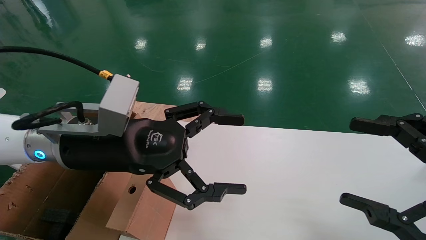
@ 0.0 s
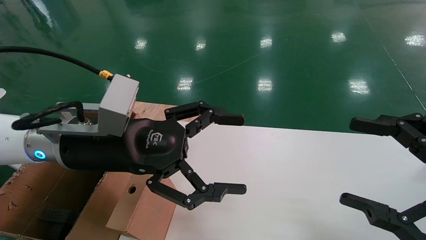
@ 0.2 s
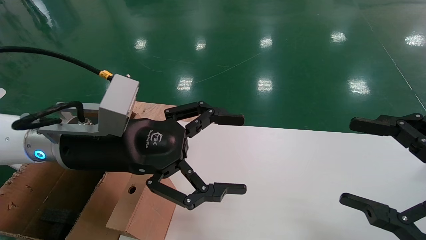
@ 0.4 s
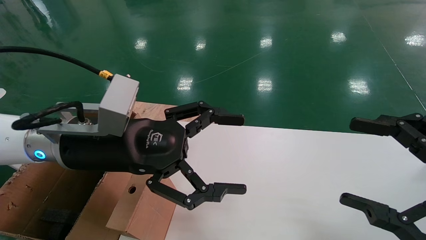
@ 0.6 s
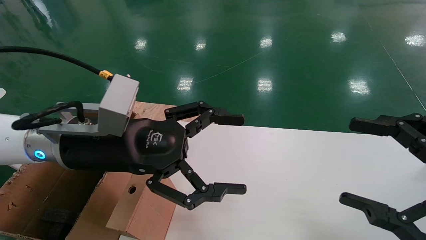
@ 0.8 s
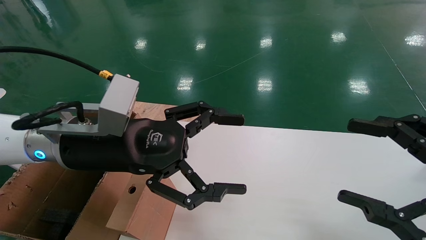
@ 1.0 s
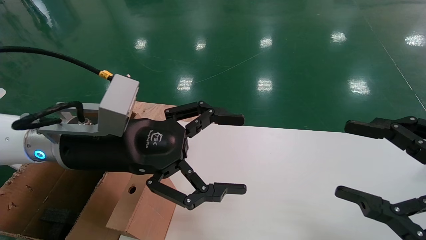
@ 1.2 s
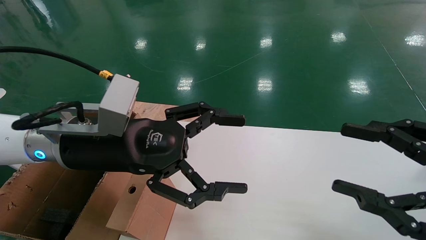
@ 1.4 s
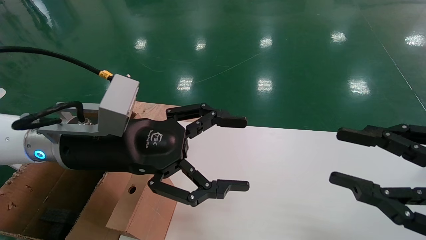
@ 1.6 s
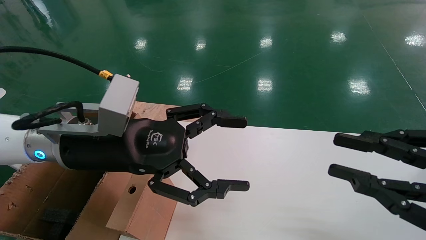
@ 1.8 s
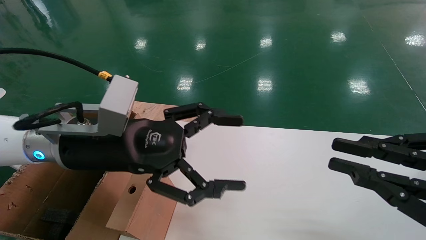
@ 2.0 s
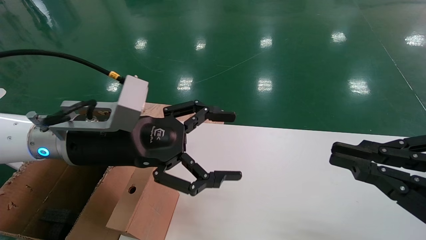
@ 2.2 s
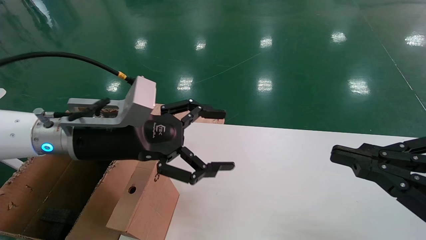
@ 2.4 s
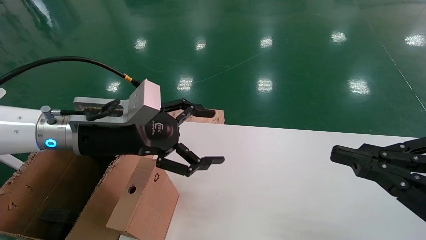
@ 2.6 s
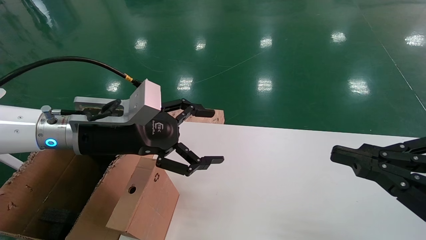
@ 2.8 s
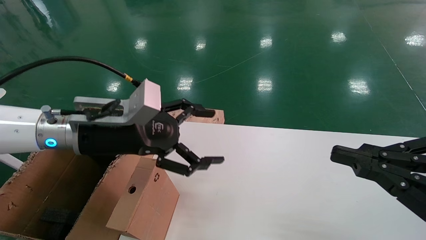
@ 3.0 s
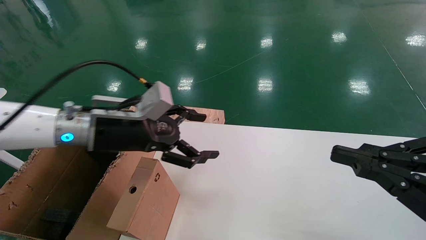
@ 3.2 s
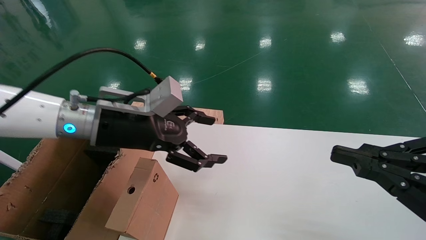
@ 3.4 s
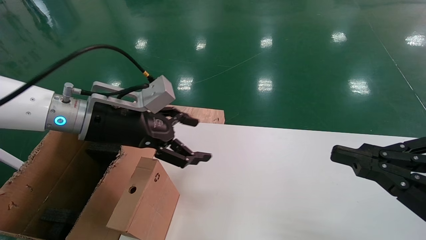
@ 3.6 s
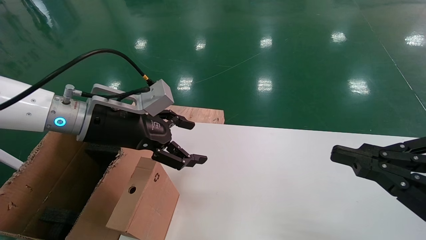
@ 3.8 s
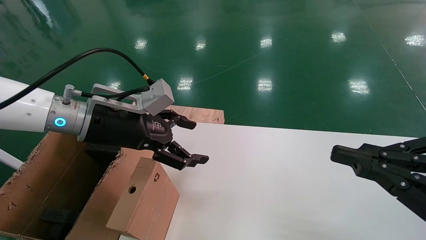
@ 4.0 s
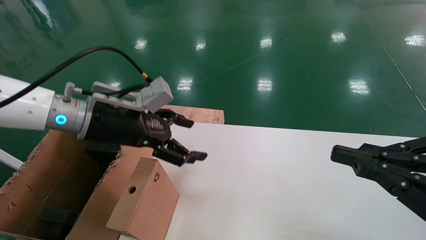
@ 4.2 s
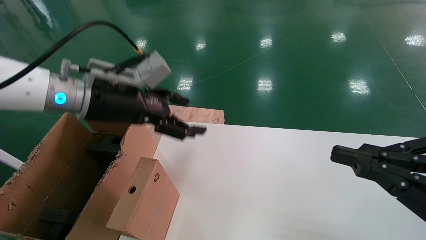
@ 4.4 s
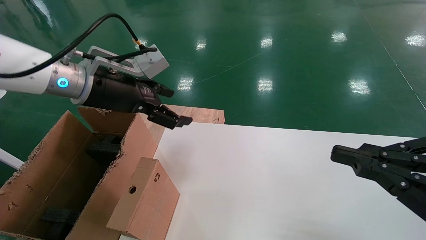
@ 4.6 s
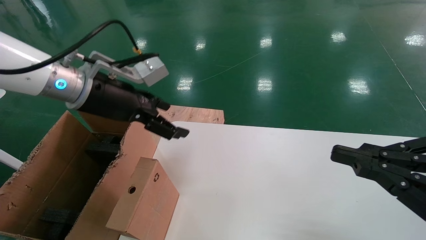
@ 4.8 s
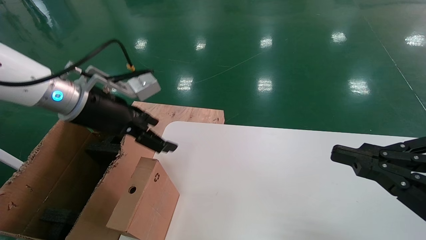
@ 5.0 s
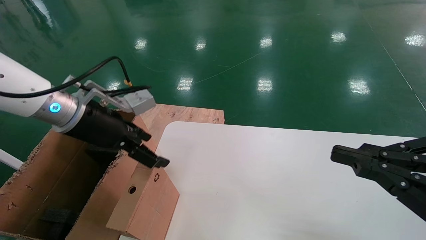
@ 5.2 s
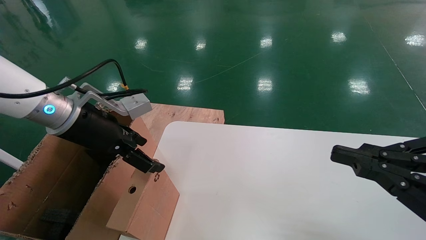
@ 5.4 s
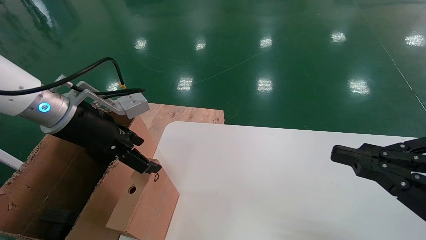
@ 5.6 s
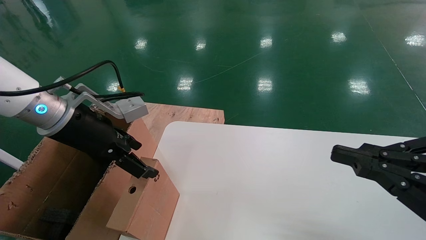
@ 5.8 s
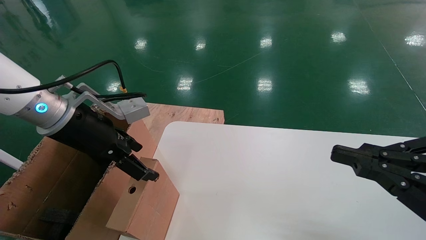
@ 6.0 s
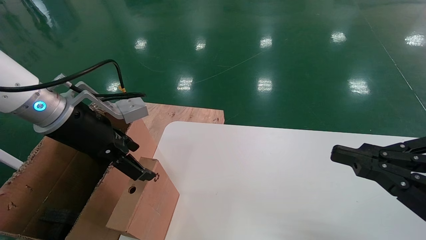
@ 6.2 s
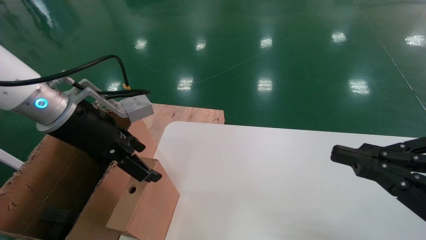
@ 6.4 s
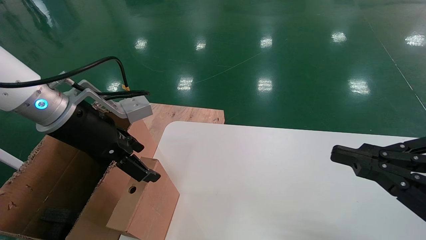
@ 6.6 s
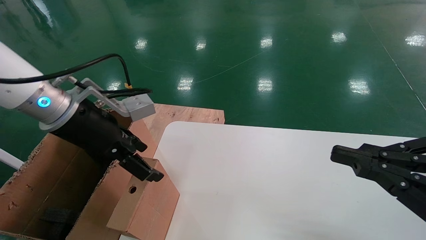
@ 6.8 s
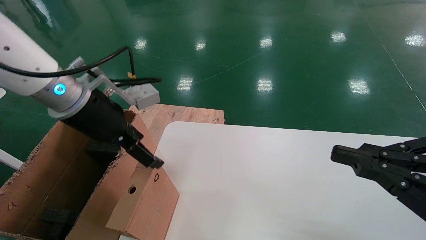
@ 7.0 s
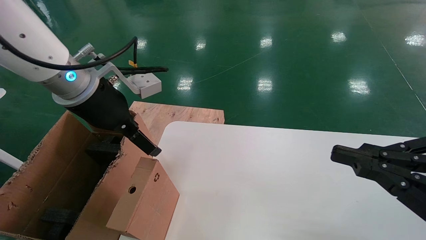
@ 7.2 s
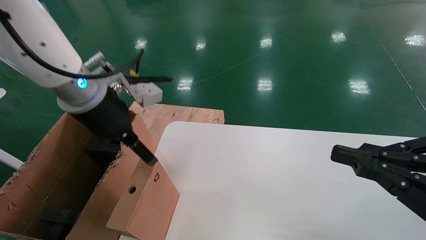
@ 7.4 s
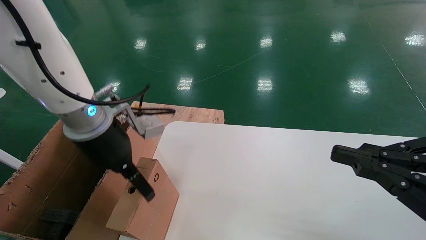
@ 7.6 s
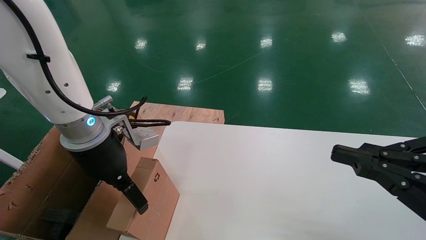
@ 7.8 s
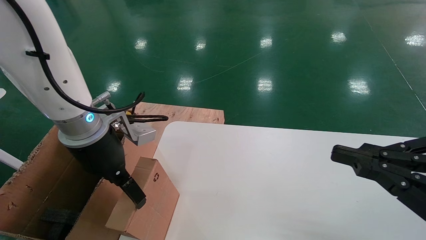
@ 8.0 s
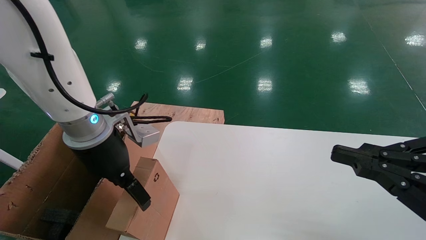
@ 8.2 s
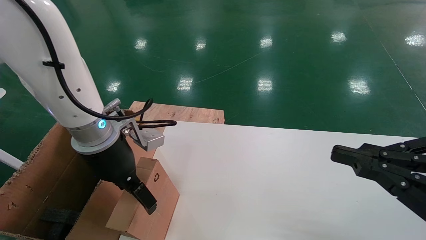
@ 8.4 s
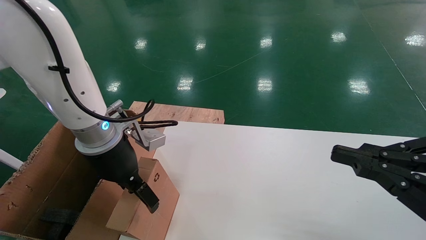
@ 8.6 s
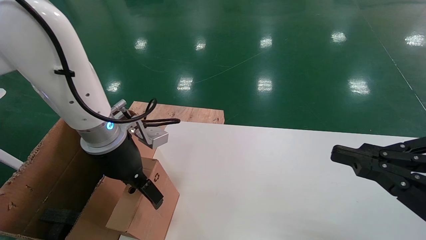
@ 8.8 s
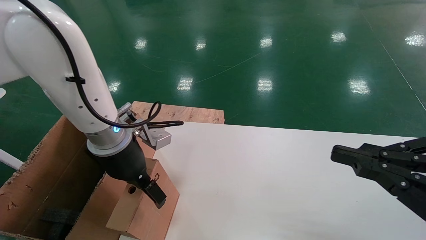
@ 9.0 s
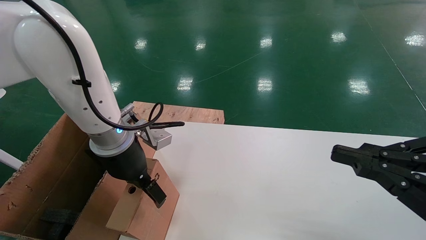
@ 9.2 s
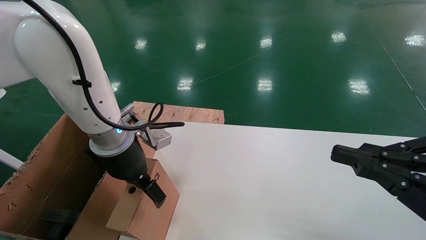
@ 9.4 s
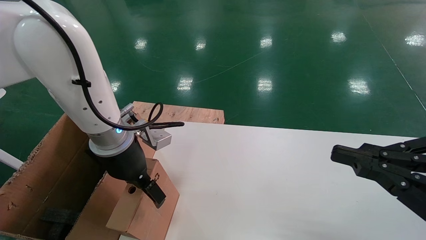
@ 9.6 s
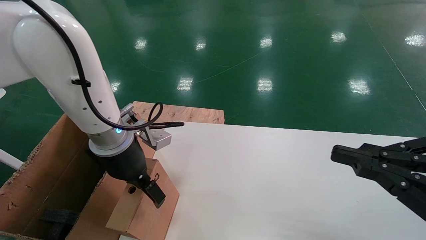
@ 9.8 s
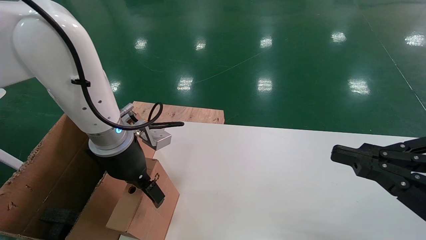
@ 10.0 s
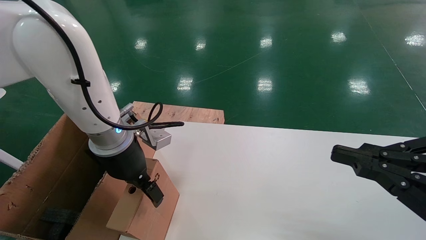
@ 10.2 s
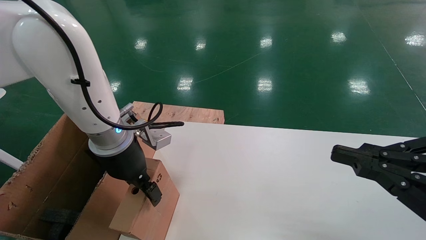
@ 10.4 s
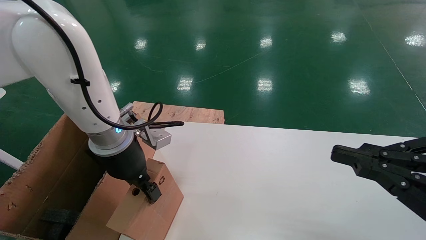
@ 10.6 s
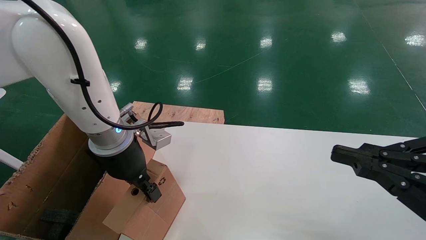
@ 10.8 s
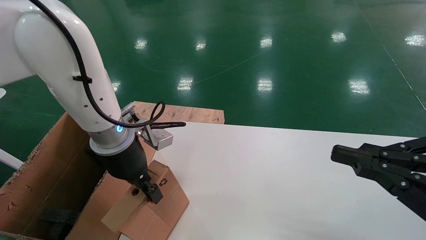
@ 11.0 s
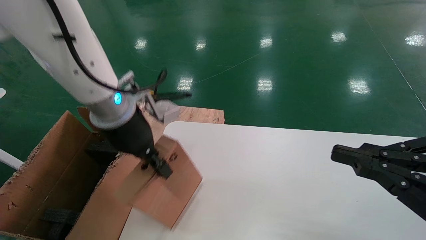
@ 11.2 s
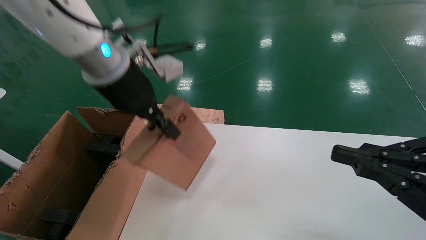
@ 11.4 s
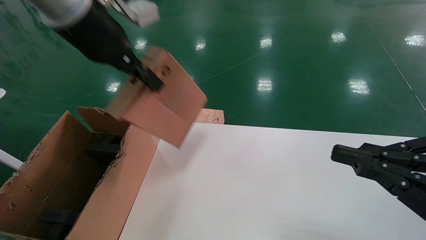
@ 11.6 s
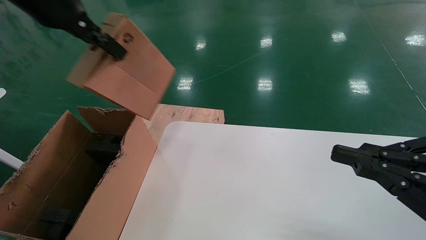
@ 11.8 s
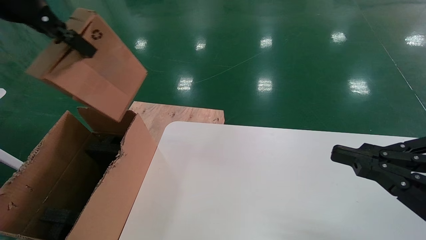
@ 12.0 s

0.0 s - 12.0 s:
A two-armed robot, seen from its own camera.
Task of the whole recording: place the small box on the table into the large box on the left.
Step, 2.4 s - 11.0 s: Pick up the mouse and the power cord paper box.
0.0 s - 1.6 s: The right gripper closes its fingers.
1.6 s - 3.0 s: The left gripper shifts by roughly 5 cm. Meanwhile the right gripper closes.
3.0 s - 4.4 s: The left gripper moves upward, approximately 5 cm.
6.0 s - 7.6 s: The left gripper heads to the right, covering roughly 5 cm.
7.6 s - 9.0 s: There are only small adjustments of the grippers.
9.0 s - 10.4 s: Both grippers stay put.
10.4 s - 12.0 s: The left gripper shifts approximately 30 cm upward and to the left, and closes up.

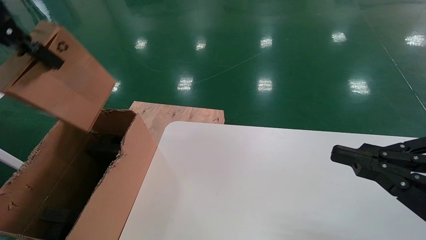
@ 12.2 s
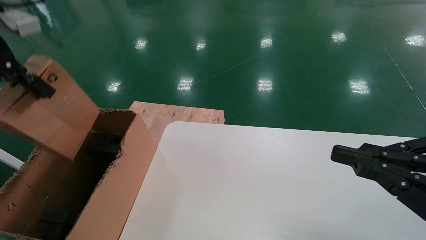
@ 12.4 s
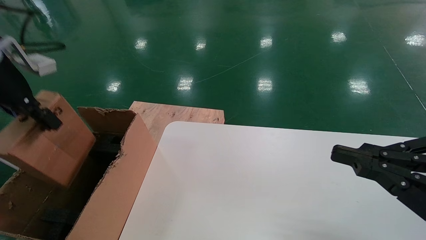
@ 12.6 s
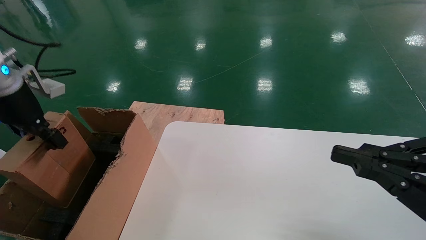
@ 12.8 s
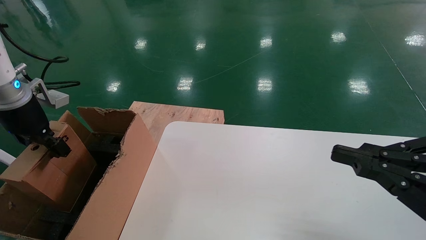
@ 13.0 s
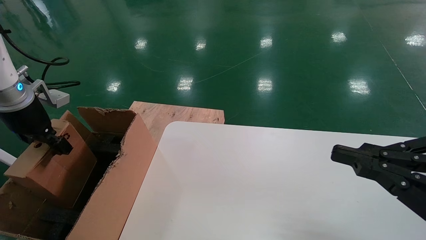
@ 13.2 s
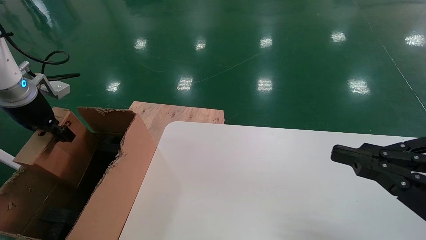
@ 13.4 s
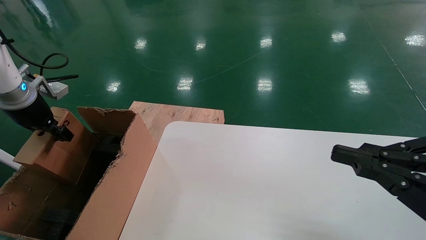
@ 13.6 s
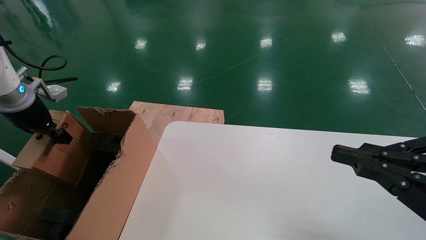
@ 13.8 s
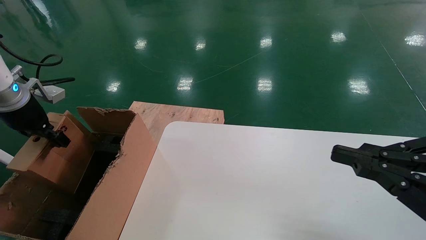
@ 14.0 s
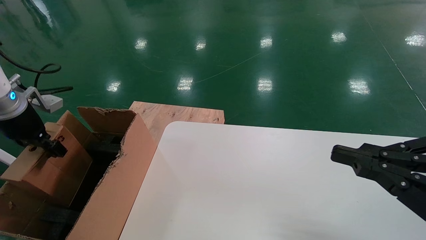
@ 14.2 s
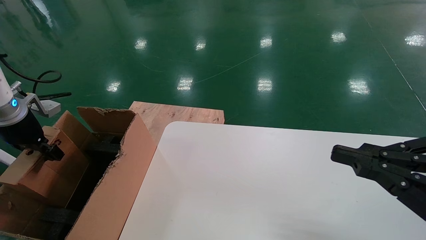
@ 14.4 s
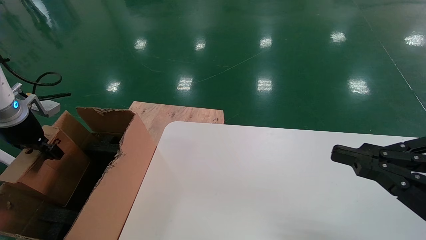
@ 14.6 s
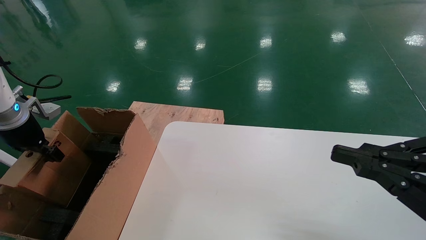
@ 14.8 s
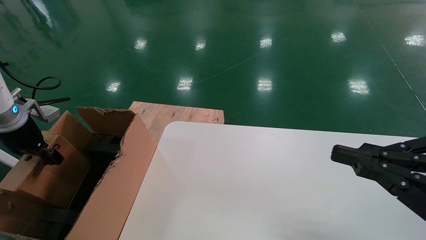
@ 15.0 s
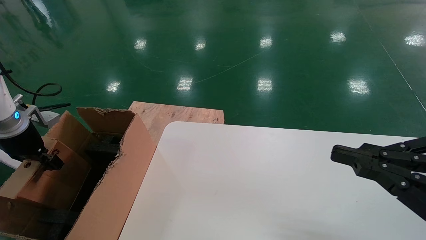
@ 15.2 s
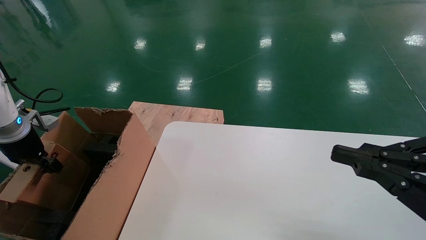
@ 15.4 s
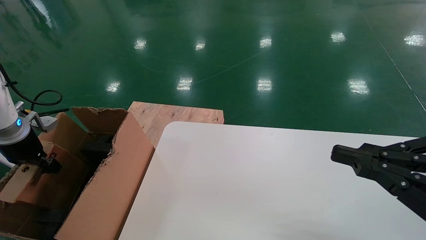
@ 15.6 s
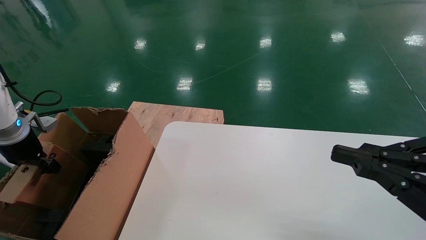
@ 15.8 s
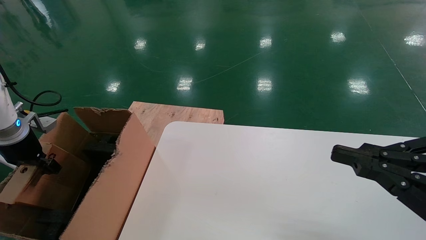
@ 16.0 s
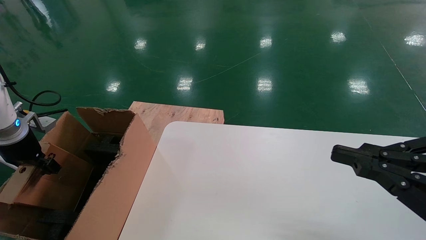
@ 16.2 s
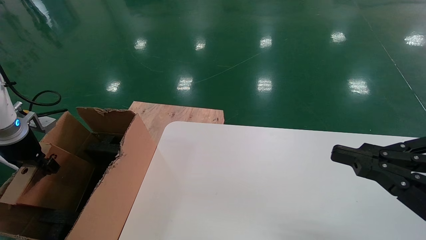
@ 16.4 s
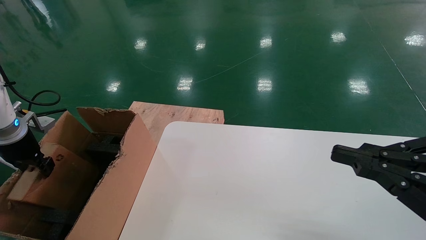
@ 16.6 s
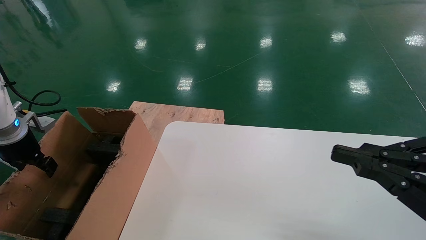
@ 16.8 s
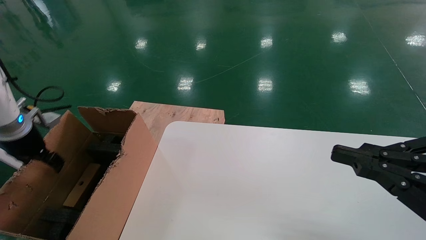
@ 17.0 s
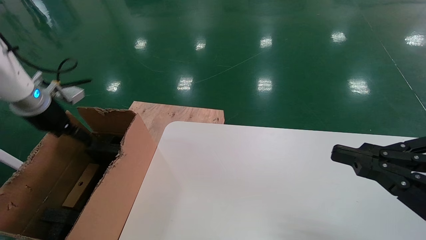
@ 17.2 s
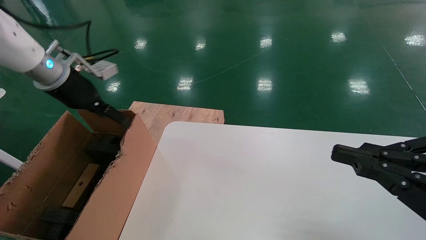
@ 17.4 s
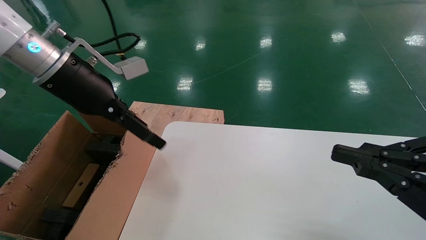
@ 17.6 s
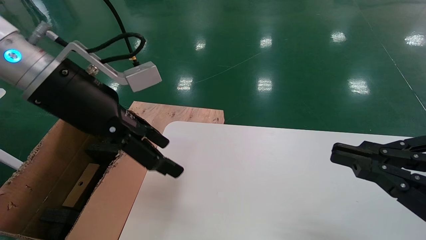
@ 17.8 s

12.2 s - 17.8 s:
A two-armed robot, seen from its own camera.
Task of the whole recording: place the small box on the table into the large box on the left.
Step, 12.2 s - 16.8 s: Place the mouse and the power cord paper box into the container.
12.2 s - 13.6 s: The left gripper travels downward, to the left and forward by approximately 20 cm.
13.6 s - 15.0 s: The left gripper shifts approximately 5 cm downward.
15.0 s - 16.4 s: The grippers stay close to where they were, moving slightly.
16.4 s - 17.8 s: The left gripper shifts about 30 cm to the right and upward, and opens.
